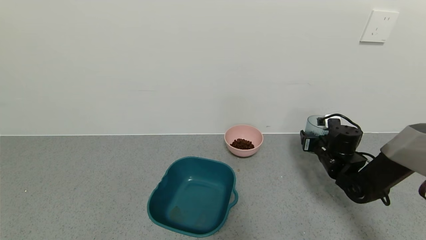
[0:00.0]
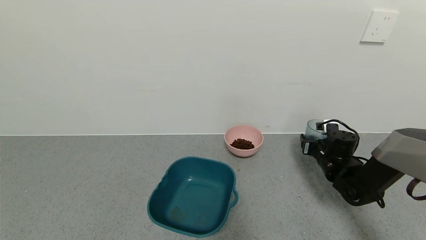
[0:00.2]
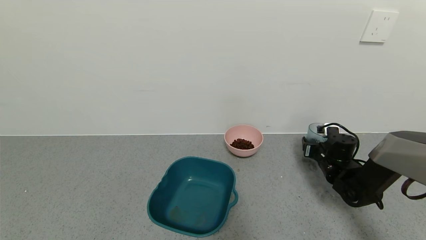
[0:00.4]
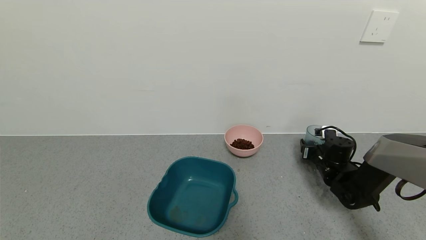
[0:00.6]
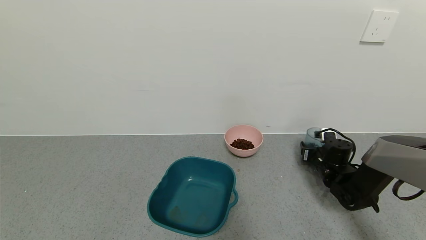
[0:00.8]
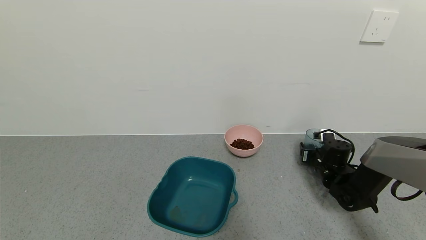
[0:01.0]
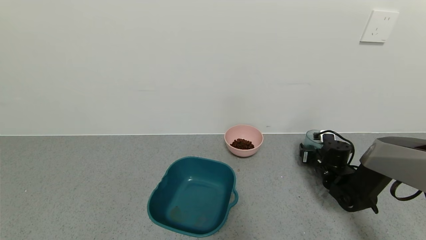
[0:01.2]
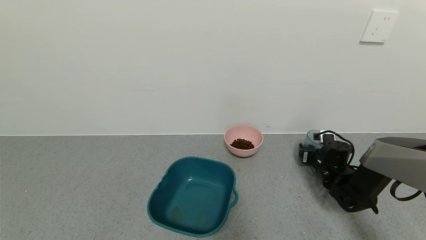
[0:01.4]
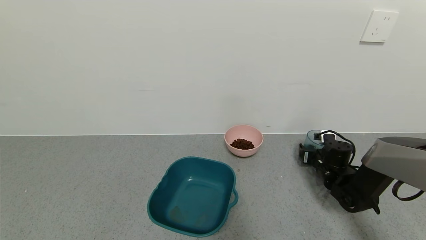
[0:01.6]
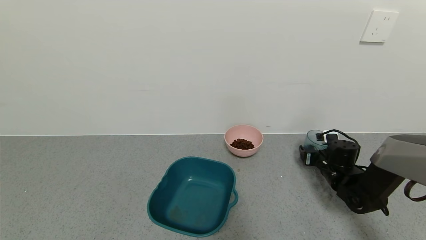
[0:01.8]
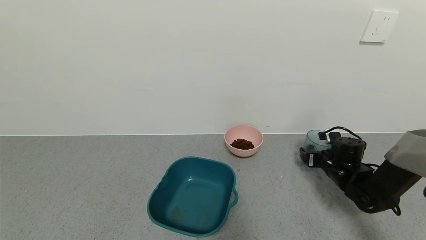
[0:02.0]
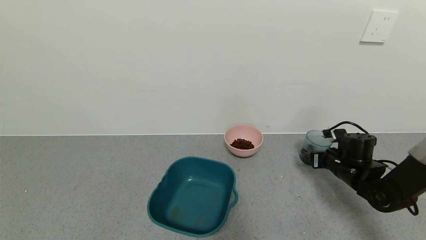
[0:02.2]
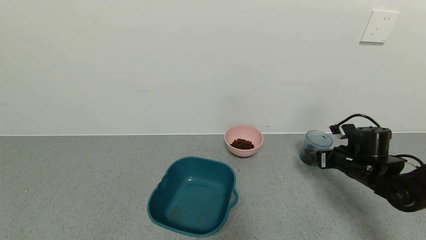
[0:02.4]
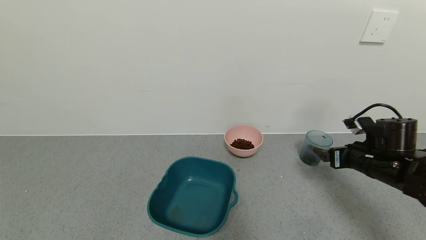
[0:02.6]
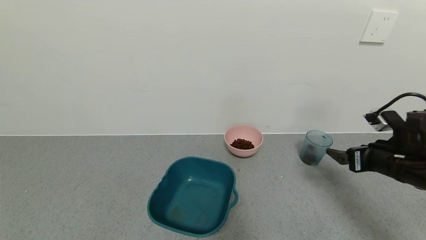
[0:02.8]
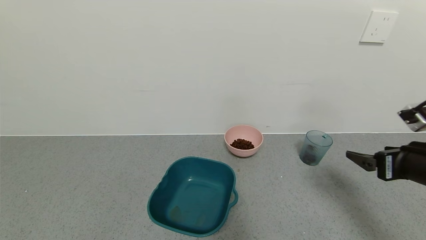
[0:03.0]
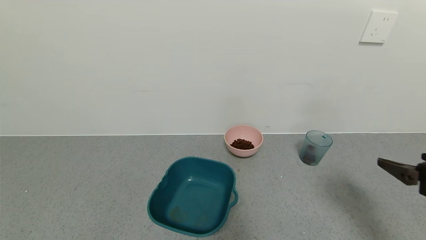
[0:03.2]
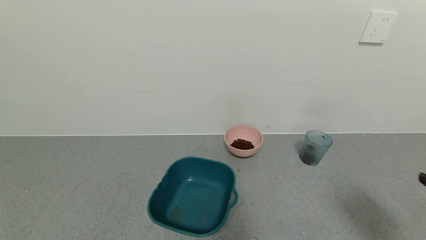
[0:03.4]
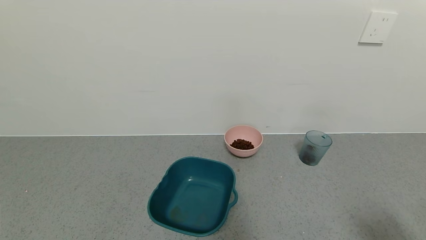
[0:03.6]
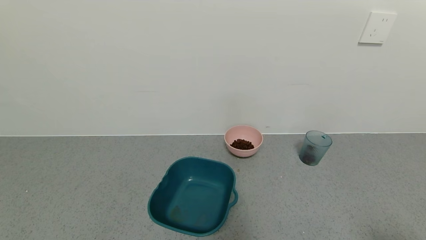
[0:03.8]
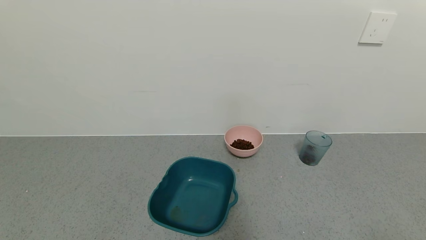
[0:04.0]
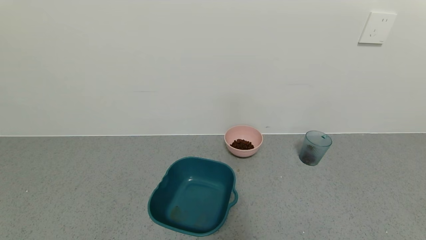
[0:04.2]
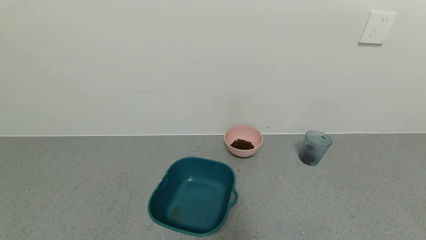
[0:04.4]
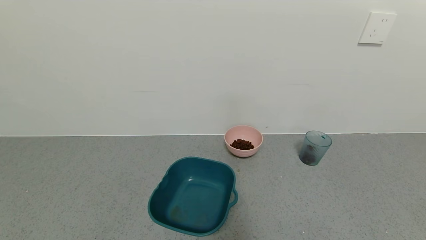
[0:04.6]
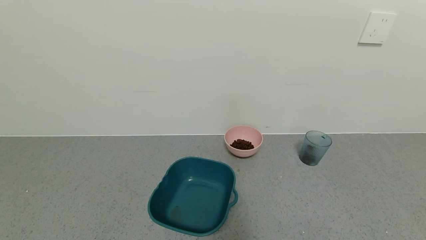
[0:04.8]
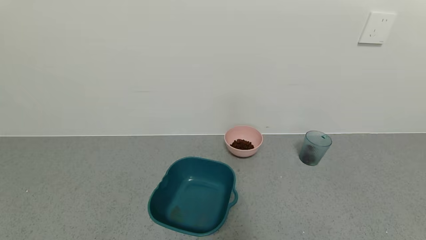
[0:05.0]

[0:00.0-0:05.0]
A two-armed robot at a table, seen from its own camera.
Task of the whole recording: use a gripper to pick up the cup and pour the solid into a bowl or tray.
Step, 0:00.0 to 0:02.6: Place the glass cup with the right gripper.
0:00.0 to 0:01.6: The right gripper shifts about 5 cm downward, and opens its fingers.
0:01.6 to 0:03.4: The right gripper heads backward and upward, covering about 40 cm.
0:03.4 to 0:05.0: The right gripper is displaced backward and downward by approximately 15 cm.
